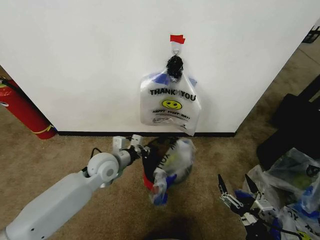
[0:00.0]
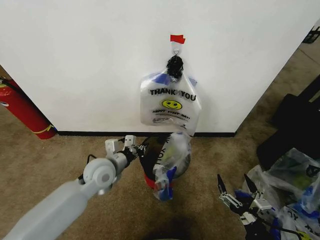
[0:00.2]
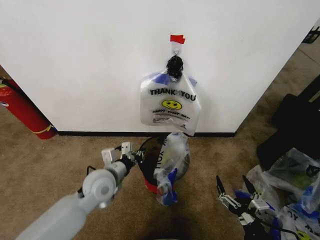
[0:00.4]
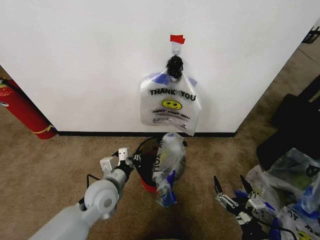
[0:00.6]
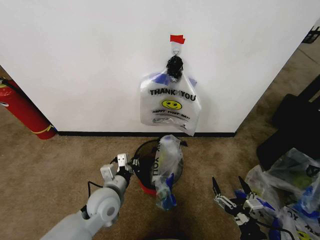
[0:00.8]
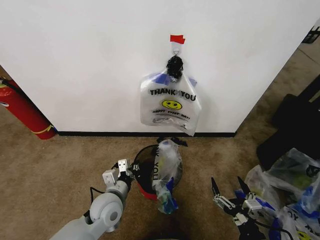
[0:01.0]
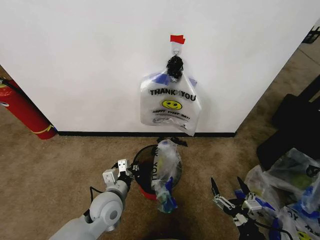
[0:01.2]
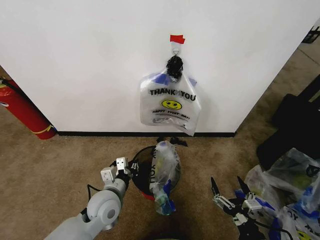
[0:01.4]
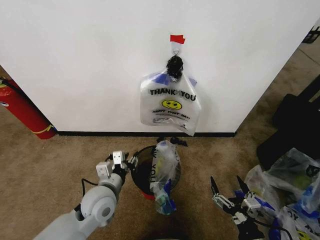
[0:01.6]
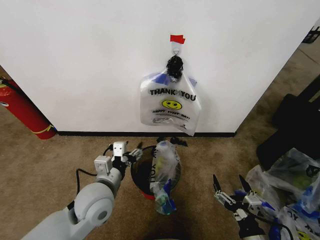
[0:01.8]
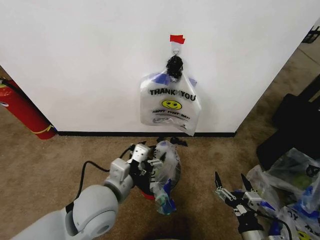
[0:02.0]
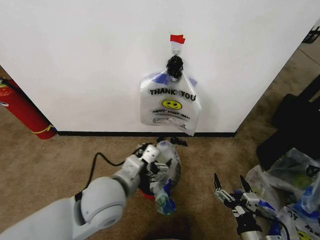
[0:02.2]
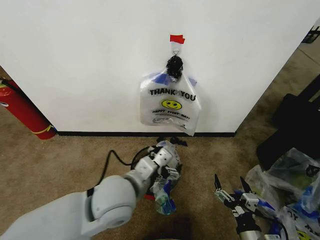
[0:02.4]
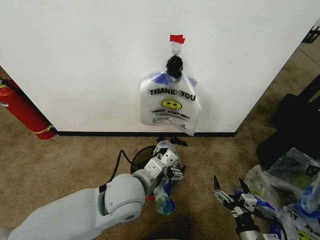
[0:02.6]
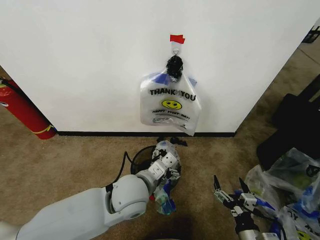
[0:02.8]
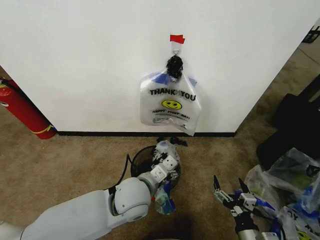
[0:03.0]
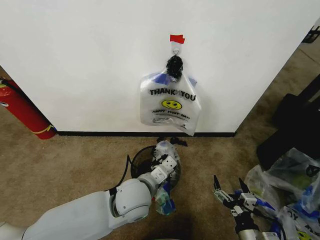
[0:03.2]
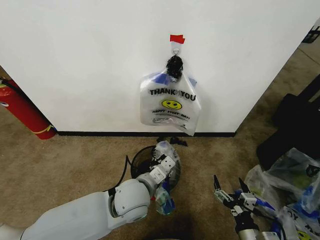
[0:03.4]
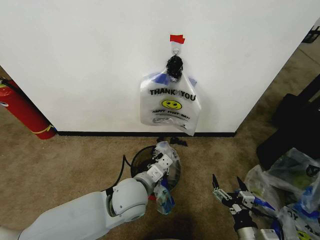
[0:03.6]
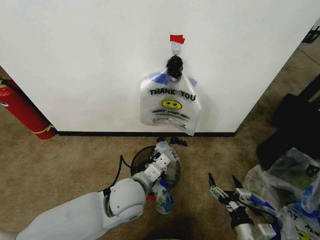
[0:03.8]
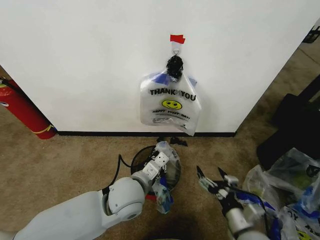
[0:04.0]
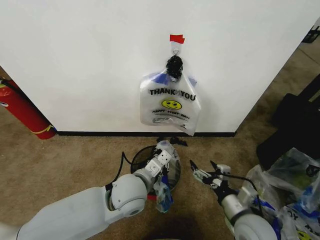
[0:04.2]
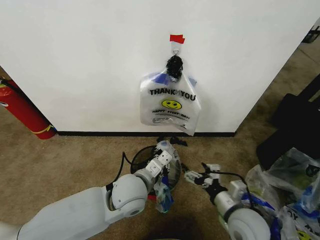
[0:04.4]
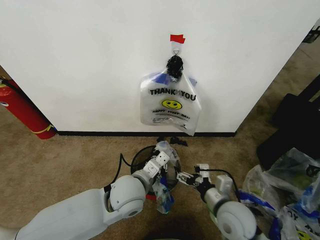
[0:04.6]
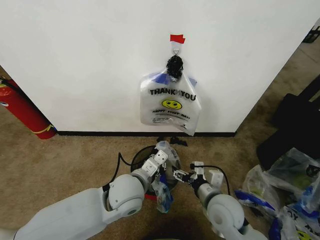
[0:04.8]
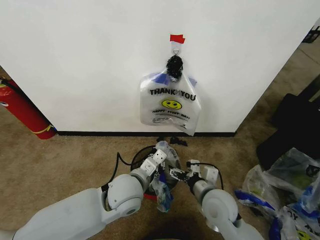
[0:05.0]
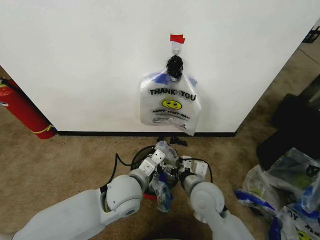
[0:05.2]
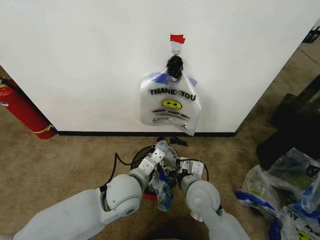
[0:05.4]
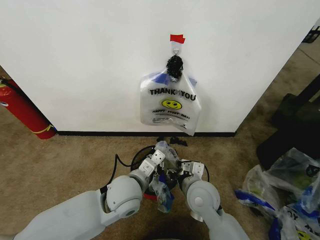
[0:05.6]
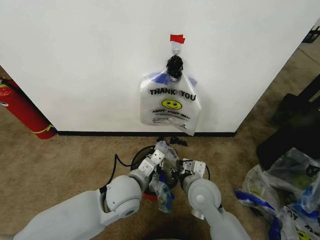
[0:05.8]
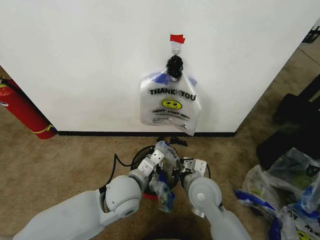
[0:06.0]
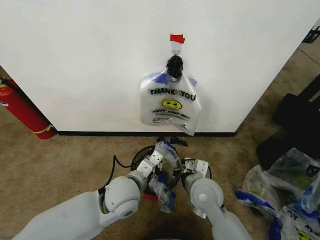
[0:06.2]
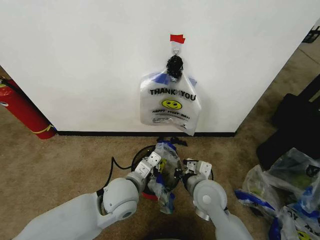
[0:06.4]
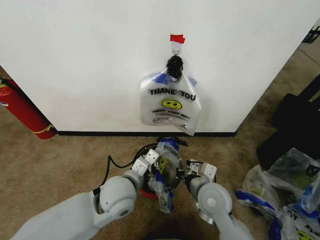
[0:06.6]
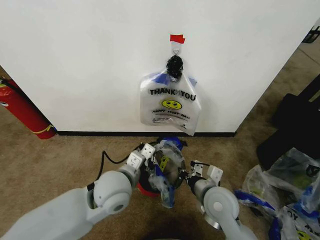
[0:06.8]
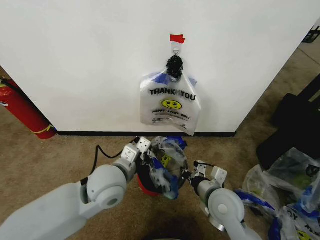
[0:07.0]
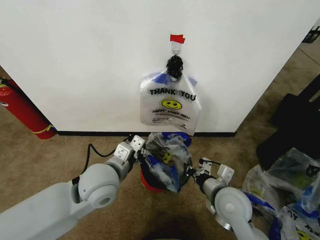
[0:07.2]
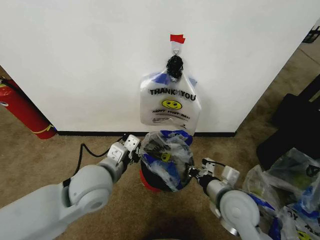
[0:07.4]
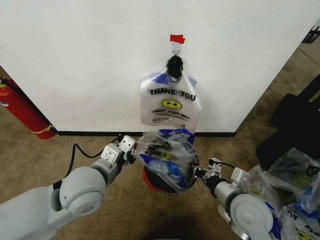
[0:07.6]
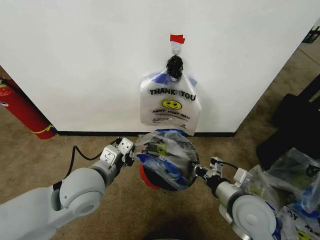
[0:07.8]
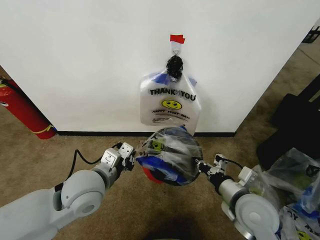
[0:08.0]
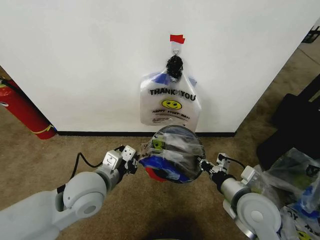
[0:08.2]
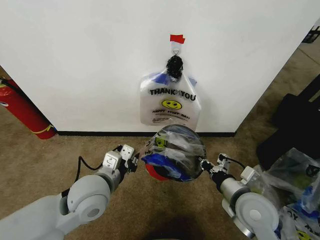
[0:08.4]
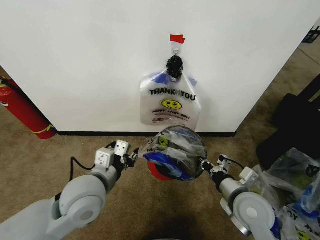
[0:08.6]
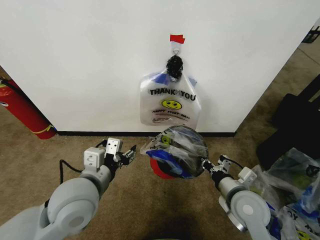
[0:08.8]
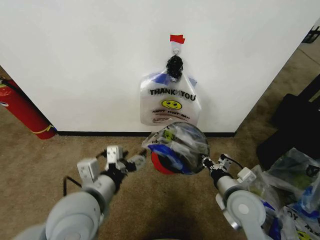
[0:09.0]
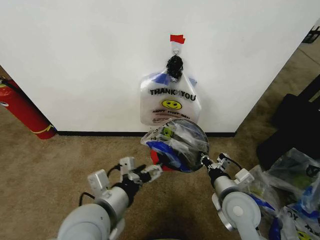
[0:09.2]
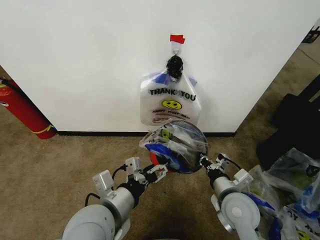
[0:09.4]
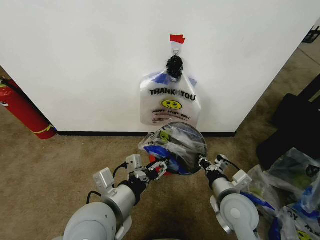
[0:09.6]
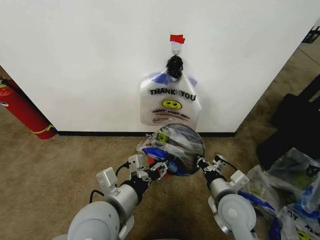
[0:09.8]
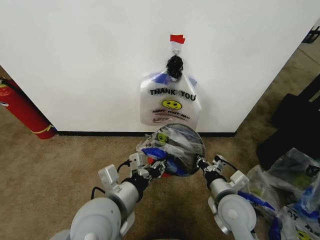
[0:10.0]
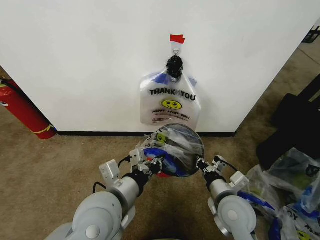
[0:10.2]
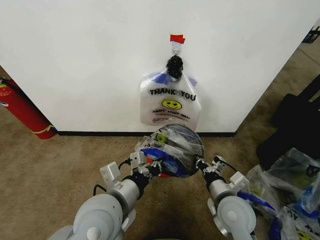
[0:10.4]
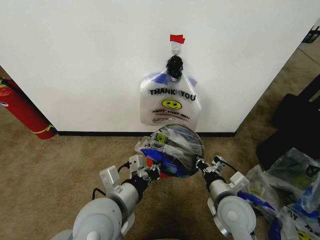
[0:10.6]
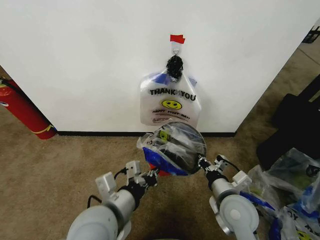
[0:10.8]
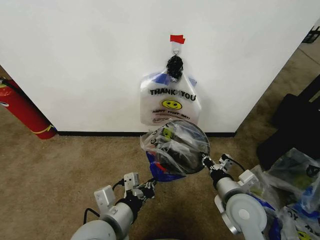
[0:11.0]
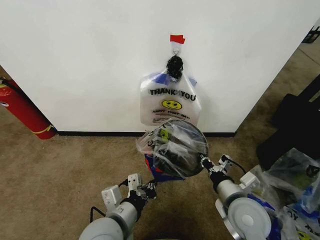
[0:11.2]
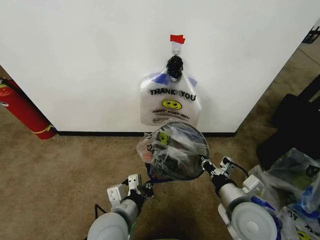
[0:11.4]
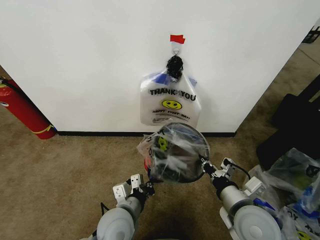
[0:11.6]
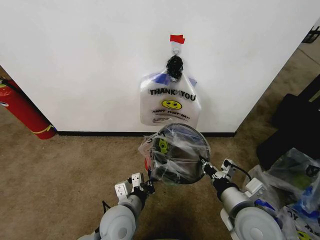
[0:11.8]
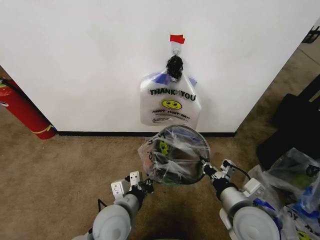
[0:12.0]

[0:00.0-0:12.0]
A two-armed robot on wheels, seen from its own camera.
Task of the whole recording: Pick up the garbage bag from the wall and place it over the trash bin.
0:00.0 to 0:01.6: The left gripper is displaced backward by roughly 10 cm, and opens.
0:01.6 to 0:03.0: The left gripper is displaced to the right and upward by roughly 10 cm.
0:03.0 to 0:04.4: The right gripper travels forward and upward by approximately 15 cm; the left gripper closes up.
0:04.4 to 0:06.0: The right gripper shifts about 10 cm to the left and forward, and closes up.
0:06.0 to 0:07.6: The left gripper travels upward and to the left by approximately 10 cm. Meanwhile the right gripper heads to the right and backward, covering about 10 cm.
0:07.6 to 0:09.0: The left gripper heads backward, covering approximately 5 cm, and opens up.
0:09.0 to 0:10.4: The left gripper closes.
0:10.4 to 0:12.0: The left gripper is displaced downward by some 10 cm; the right gripper ends up about 5 cm from where it was.

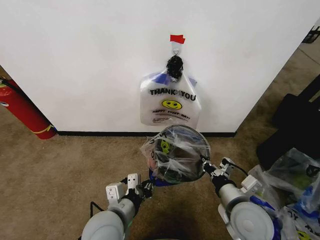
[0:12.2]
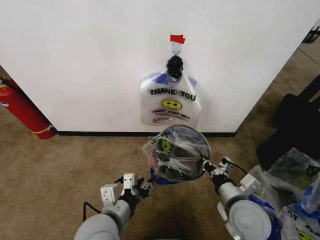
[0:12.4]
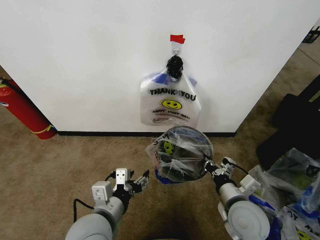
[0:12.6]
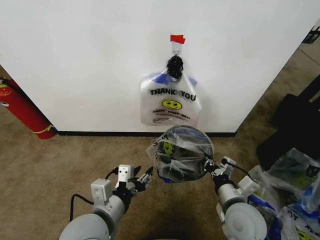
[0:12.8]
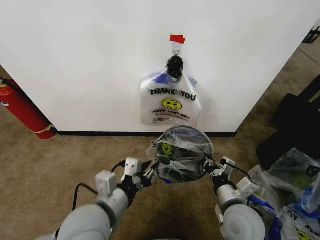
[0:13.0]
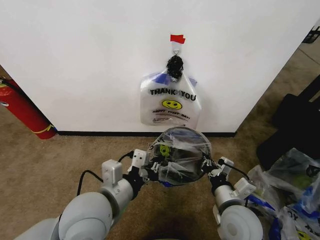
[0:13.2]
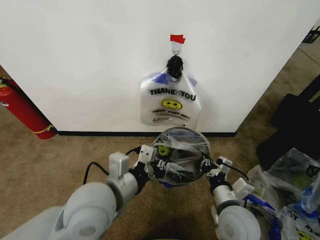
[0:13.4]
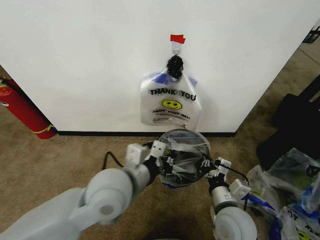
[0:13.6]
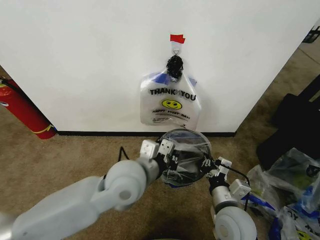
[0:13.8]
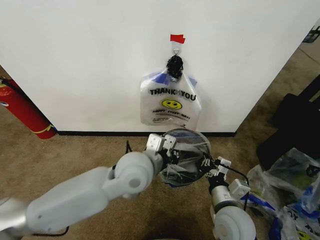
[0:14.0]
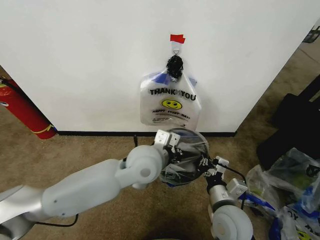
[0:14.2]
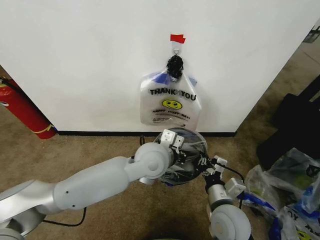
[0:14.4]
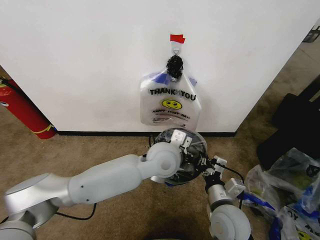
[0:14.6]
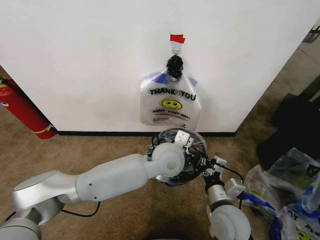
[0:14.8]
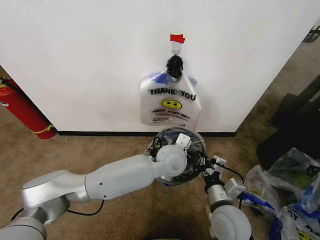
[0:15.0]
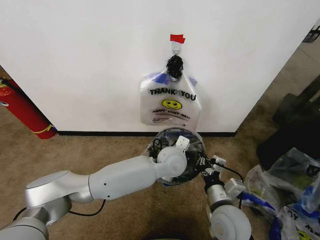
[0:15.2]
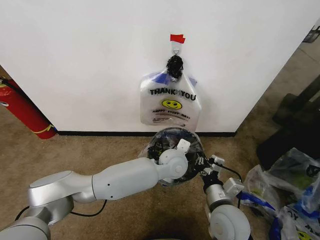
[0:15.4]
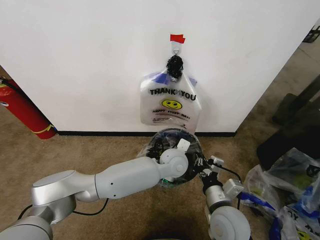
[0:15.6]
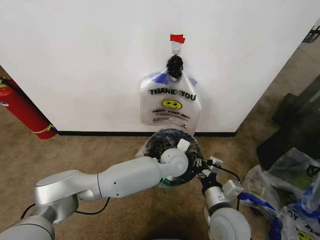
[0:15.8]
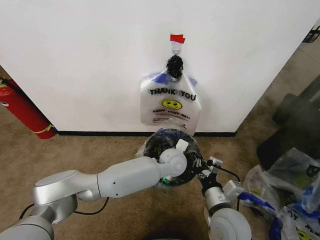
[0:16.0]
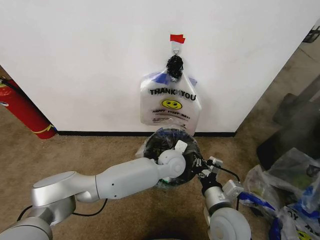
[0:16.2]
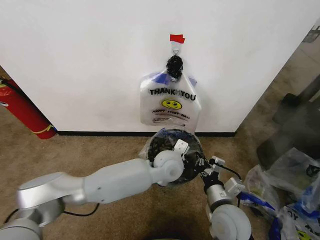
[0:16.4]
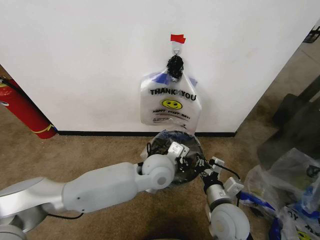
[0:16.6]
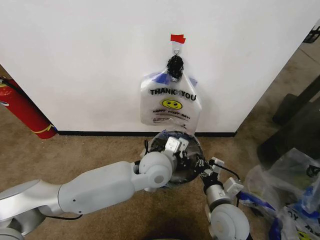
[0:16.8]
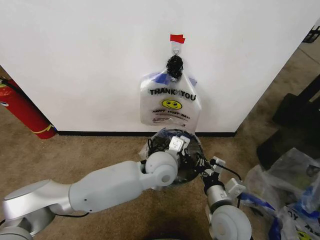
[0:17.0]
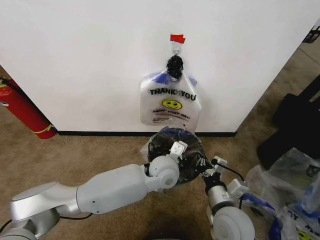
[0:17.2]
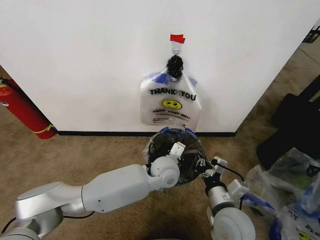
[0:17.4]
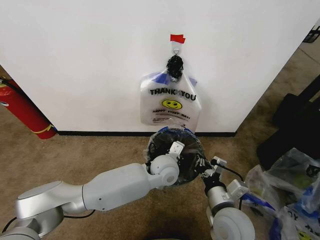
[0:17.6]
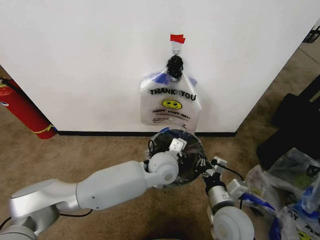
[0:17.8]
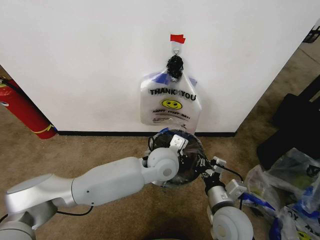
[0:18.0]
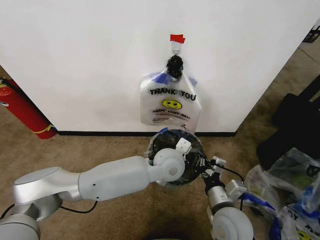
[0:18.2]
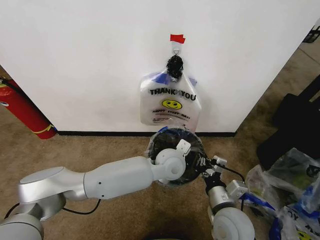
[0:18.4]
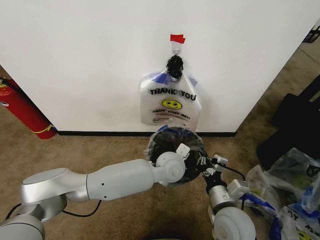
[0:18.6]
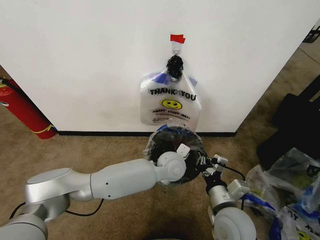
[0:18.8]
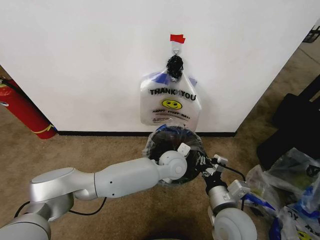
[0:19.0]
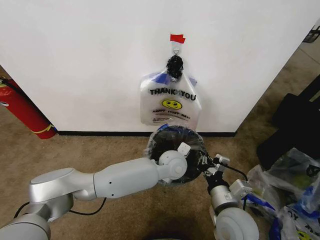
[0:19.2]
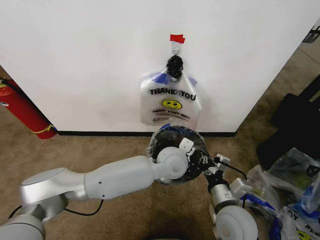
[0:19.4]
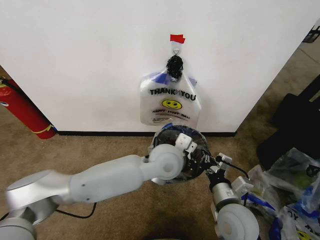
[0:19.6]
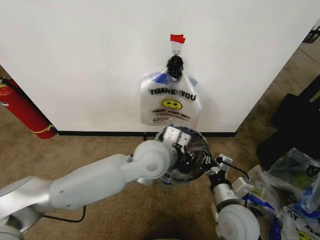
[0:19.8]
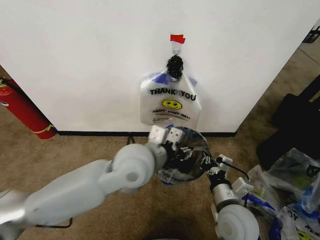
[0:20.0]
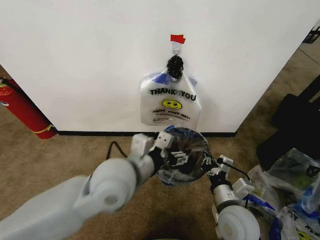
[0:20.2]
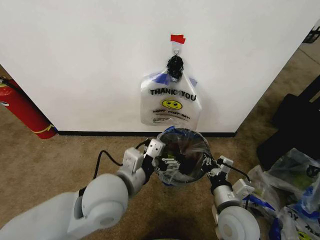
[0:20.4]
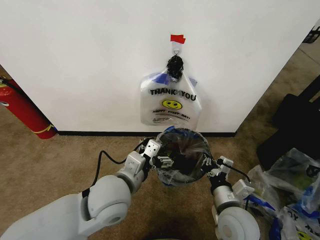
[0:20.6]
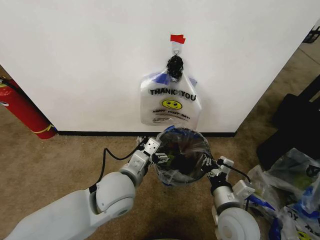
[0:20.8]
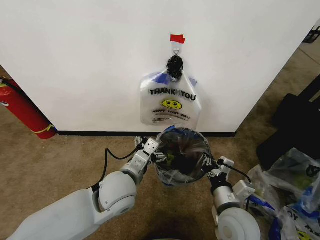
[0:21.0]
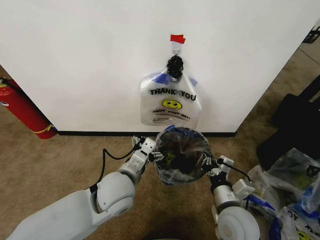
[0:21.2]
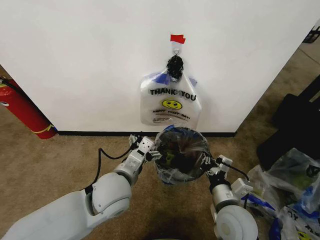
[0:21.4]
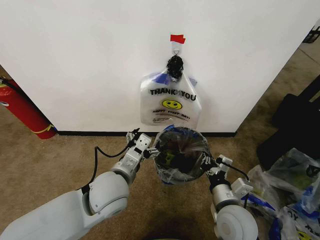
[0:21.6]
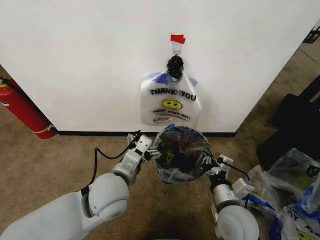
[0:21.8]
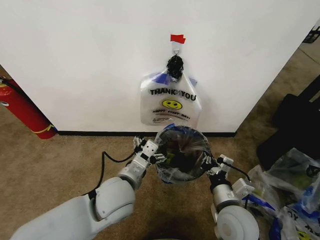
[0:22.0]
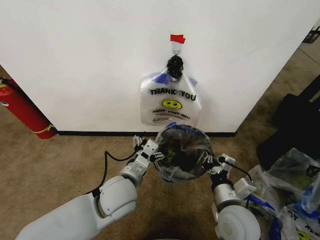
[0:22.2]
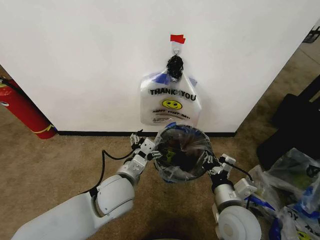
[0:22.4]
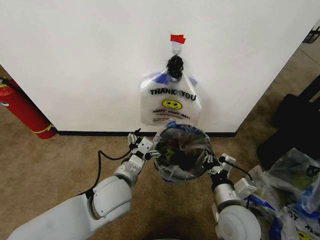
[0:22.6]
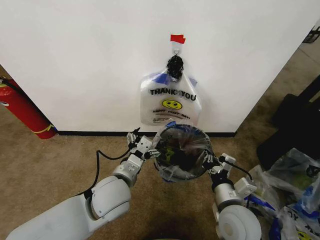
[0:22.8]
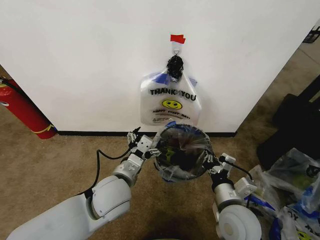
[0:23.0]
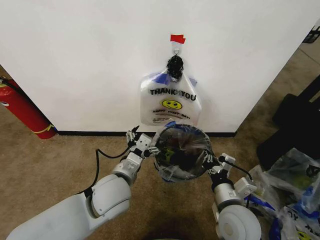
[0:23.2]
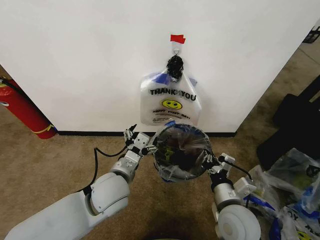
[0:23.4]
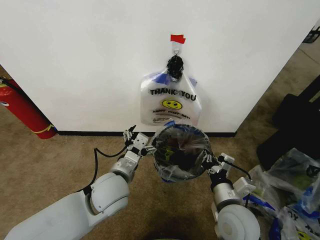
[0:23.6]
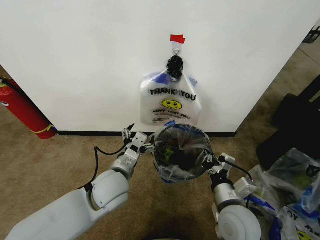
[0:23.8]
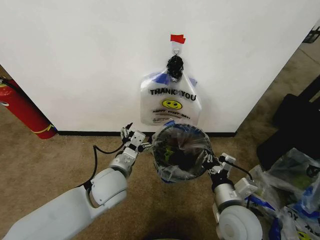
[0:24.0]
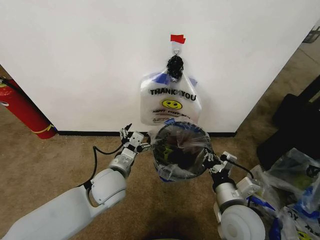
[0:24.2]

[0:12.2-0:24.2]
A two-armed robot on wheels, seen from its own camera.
Task of the whole recording: Pick up the garbage bag from the wall and place it over the trash bin.
0:12.2 to 0:13.8: The left gripper travels upward and forward by approximately 15 cm, and opens, then closes again.
0:13.8 to 0:15.2: The left gripper shifts about 20 cm to the right, forward and downward.
0:15.2 to 0:16.6: The left gripper shifts by roughly 5 cm.
0:18.2 to 0:19.8: The left gripper shifts roughly 5 cm upward.
0:19.8 to 0:21.2: The left gripper goes some 15 cm to the left, downward and backward, and opens its fingers.
0:21.2 to 0:24.2: The grippers make only small movements.
